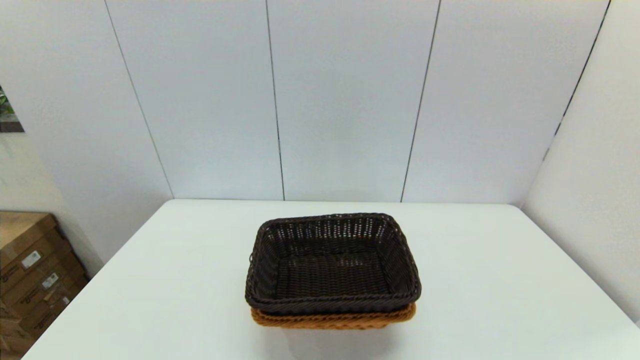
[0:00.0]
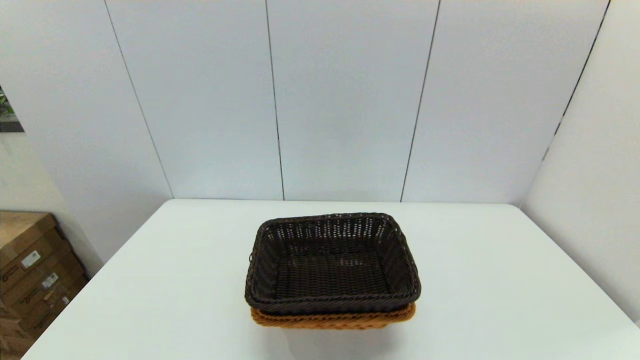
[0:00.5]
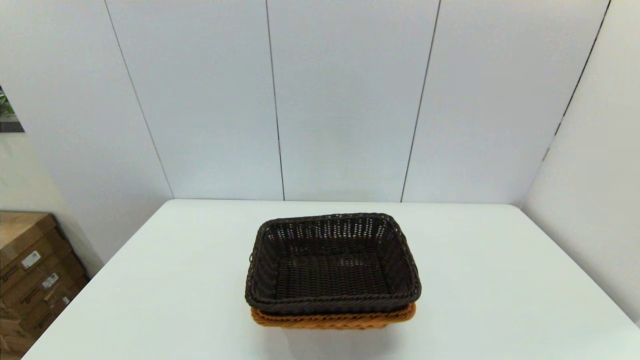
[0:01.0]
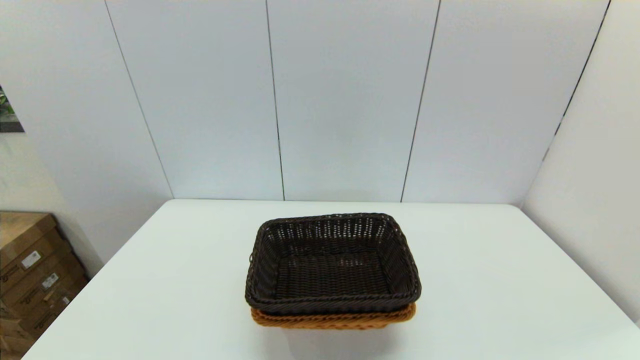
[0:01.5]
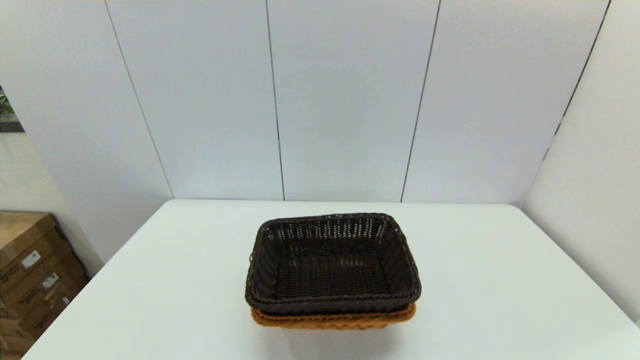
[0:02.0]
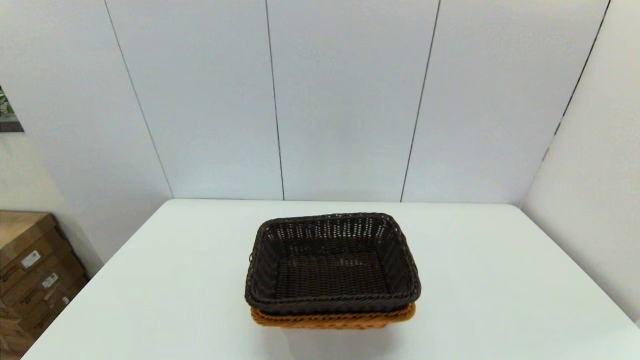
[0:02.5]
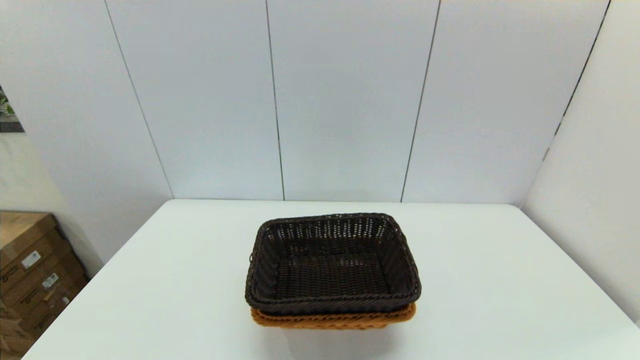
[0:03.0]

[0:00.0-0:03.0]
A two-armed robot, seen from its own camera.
Task of the whole recording: stack a basket on top of another basket.
0:00.0 to 0:03.0: Both grippers stay about where they are.

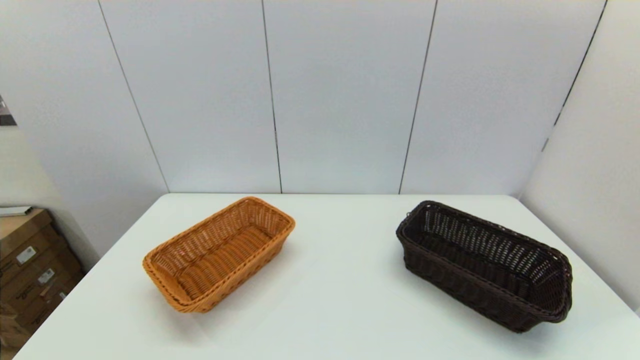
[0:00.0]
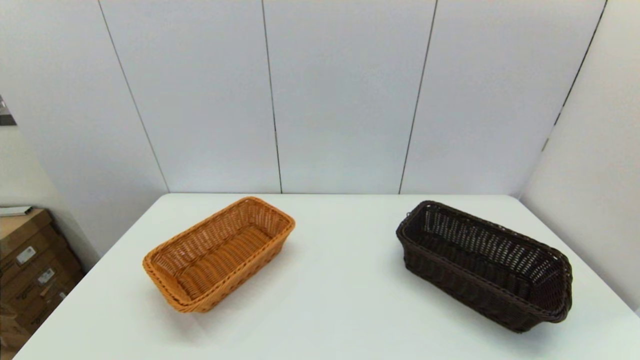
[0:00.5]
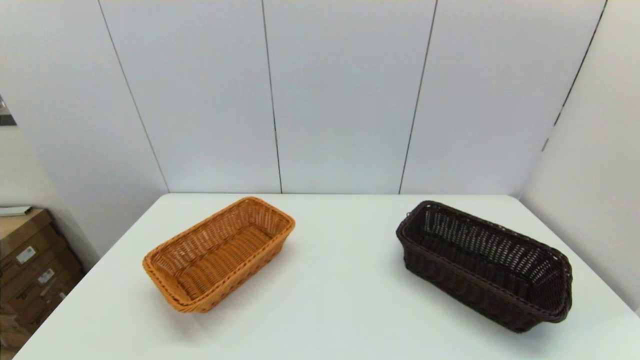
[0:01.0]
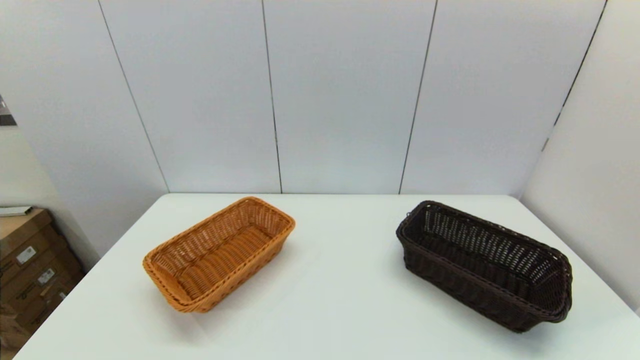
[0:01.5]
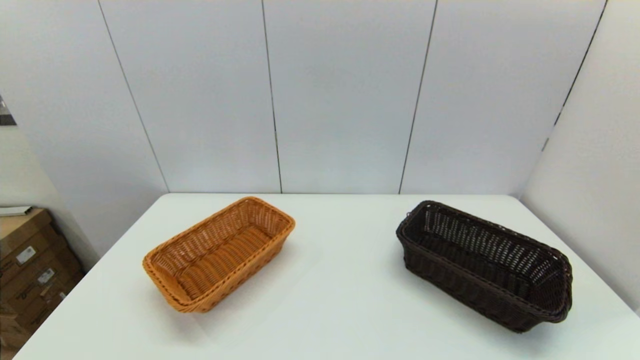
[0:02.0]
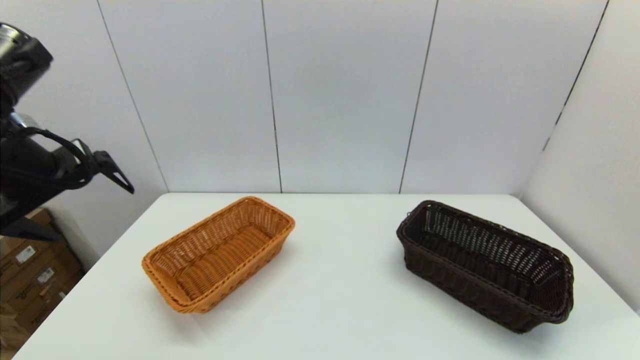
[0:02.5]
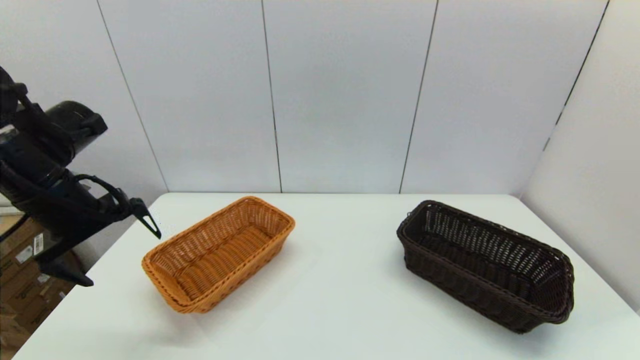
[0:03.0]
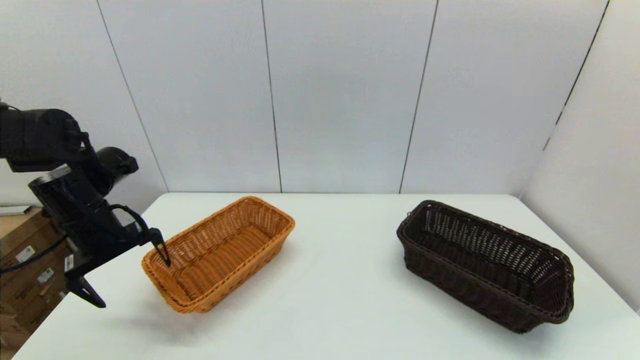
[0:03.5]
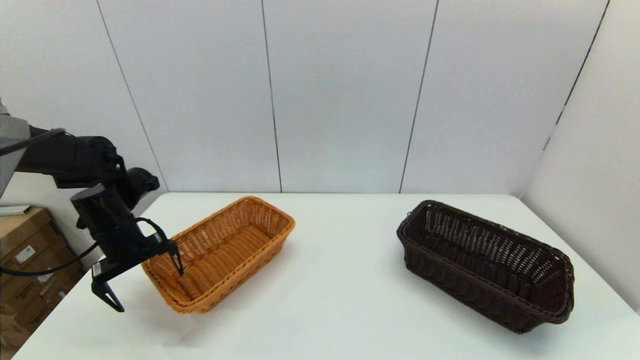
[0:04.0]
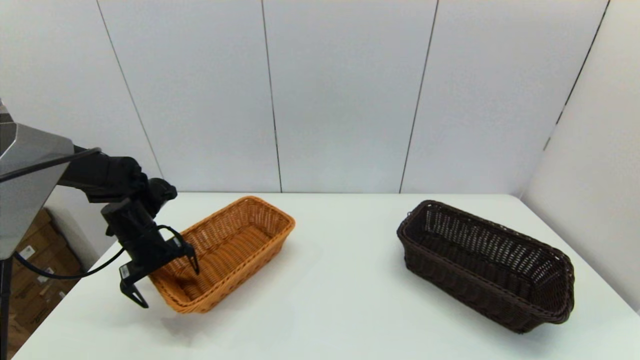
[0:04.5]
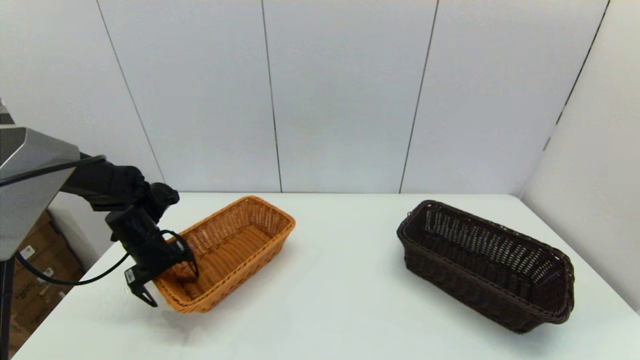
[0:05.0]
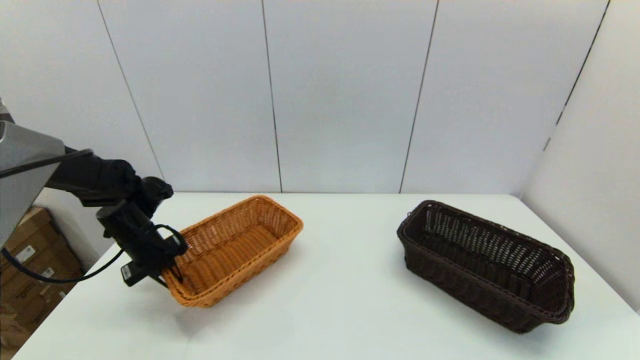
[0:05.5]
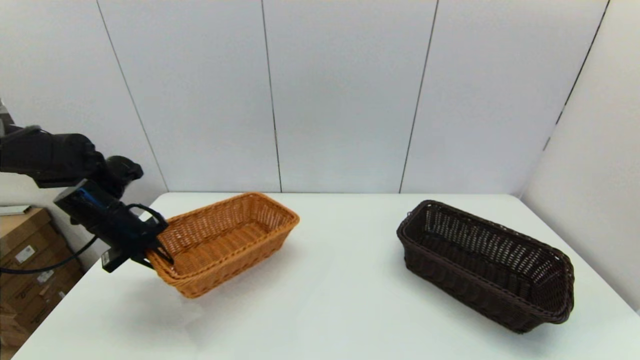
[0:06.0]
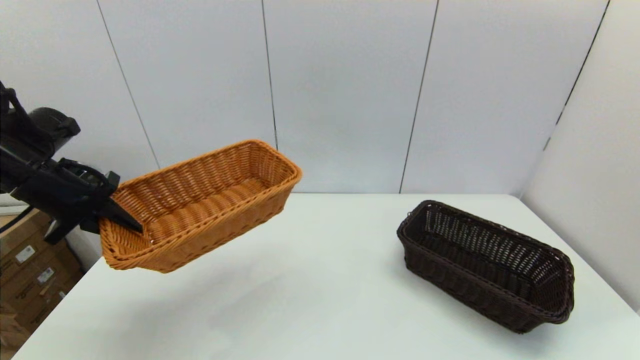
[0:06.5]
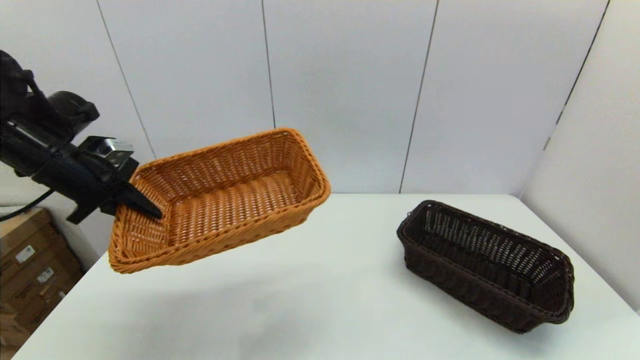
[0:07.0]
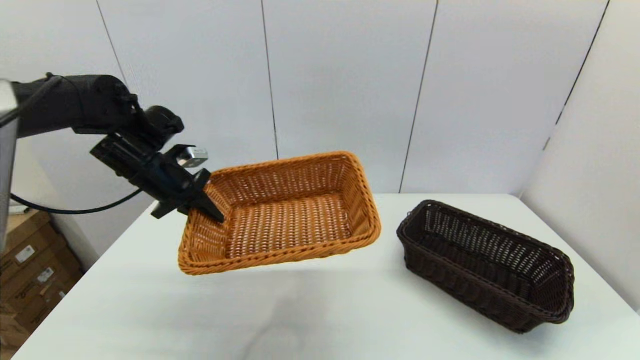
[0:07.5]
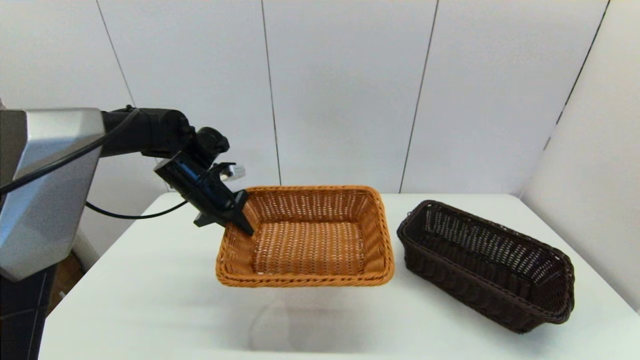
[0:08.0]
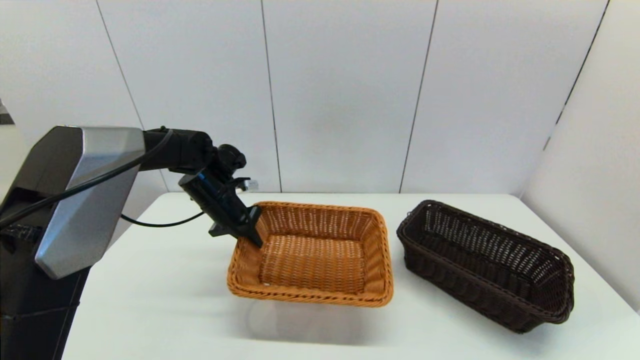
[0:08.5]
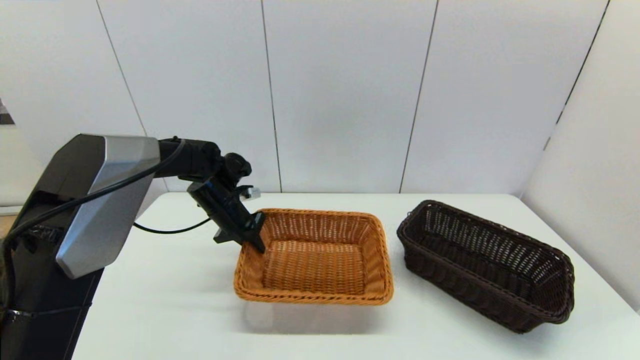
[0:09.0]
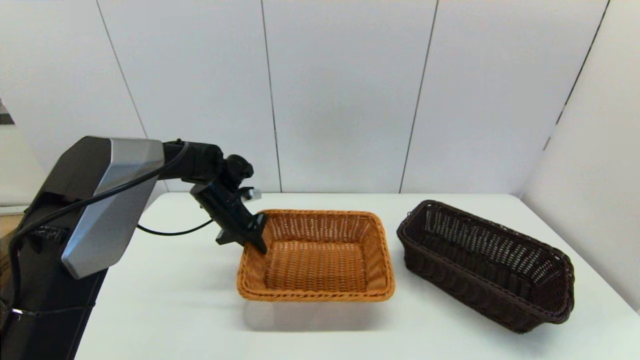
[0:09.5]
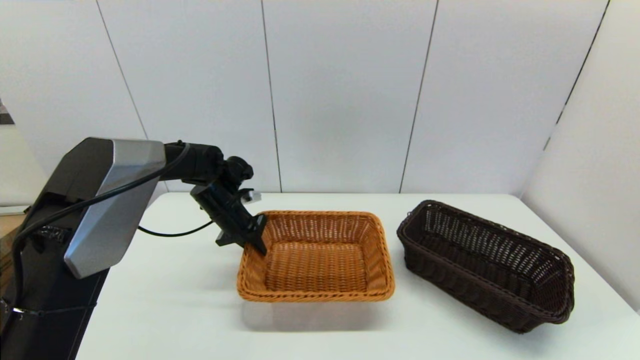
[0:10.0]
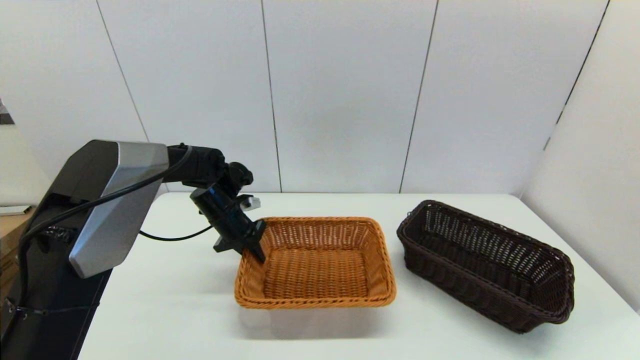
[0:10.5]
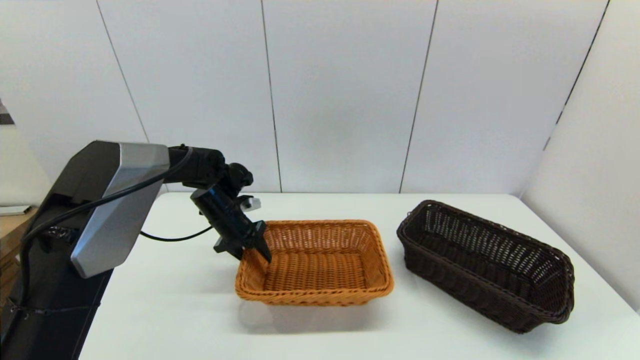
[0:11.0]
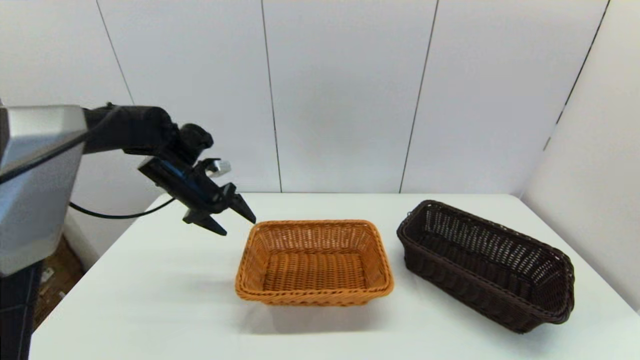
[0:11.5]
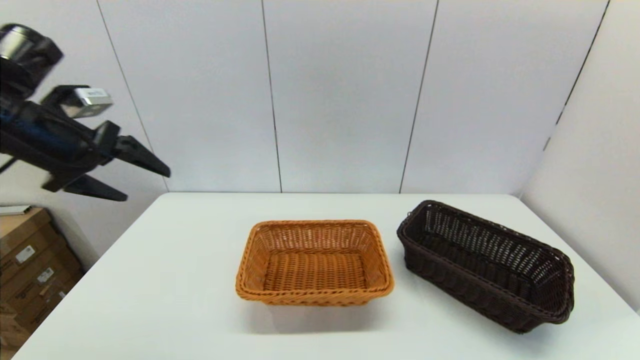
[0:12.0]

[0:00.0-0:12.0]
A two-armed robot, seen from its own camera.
Task of the whole recording: stack a basket on top of another basket.
Step, 0:02.0 to 0:05.5: Grasp the light basket with the left gripper.
Step, 0:06.0 to 0:11.5: Place the light basket on the middle of the table with the left gripper.
0:02.0 to 0:04.0: The left gripper heads downward and forward, covering approximately 35 cm.
0:04.0 to 0:06.0: The left gripper closes.
0:06.0 to 0:08.0: The left gripper heads to the right and forward, covering roughly 15 cm.
0:08.0 to 0:10.0: The left gripper shifts approximately 5 cm downward.
0:10.0 to 0:12.0: The left gripper moves upward, backward and to the left, roughly 30 cm, and opens.

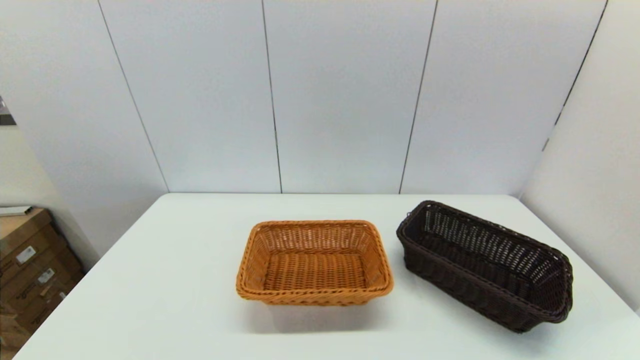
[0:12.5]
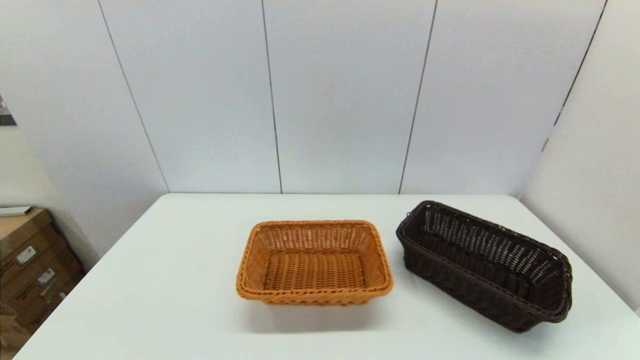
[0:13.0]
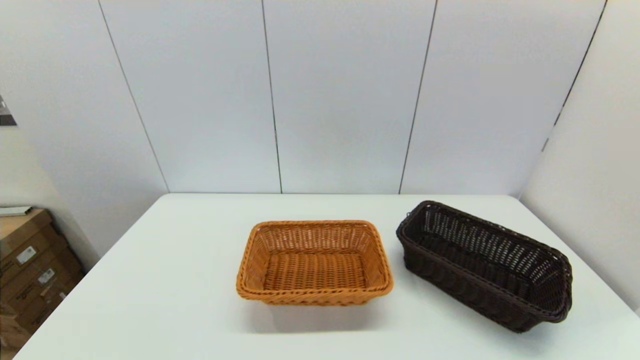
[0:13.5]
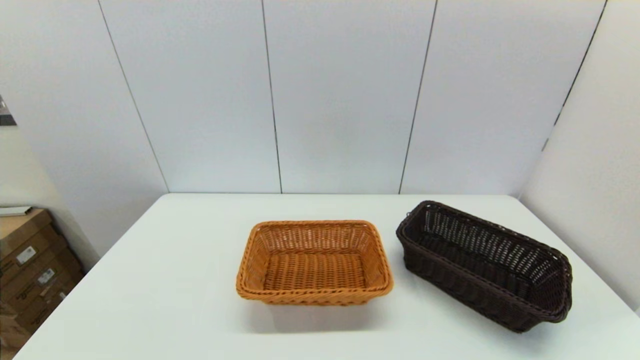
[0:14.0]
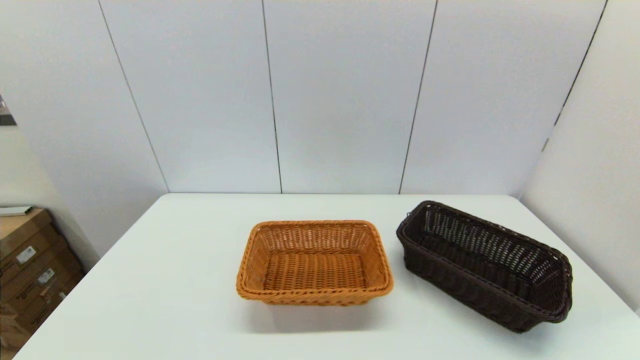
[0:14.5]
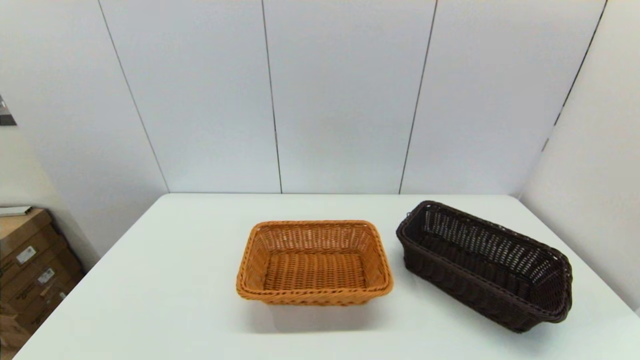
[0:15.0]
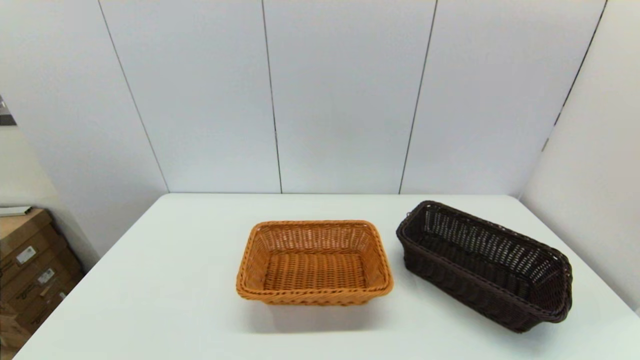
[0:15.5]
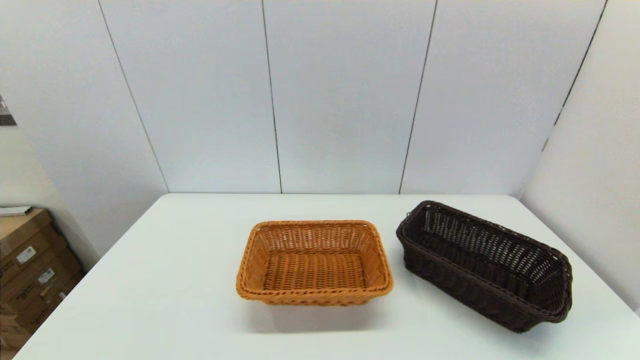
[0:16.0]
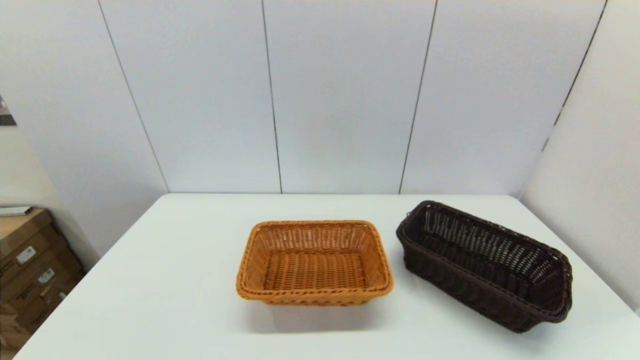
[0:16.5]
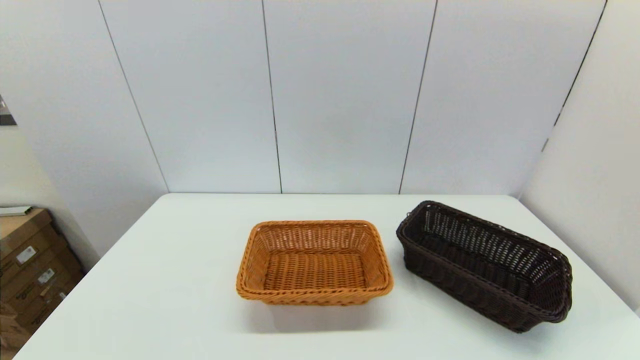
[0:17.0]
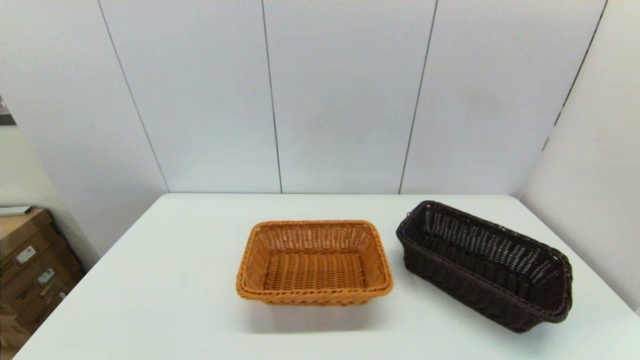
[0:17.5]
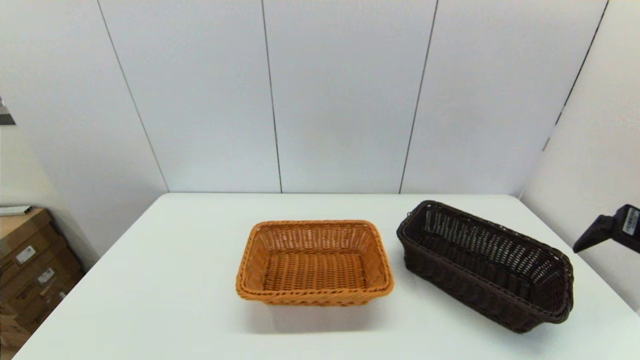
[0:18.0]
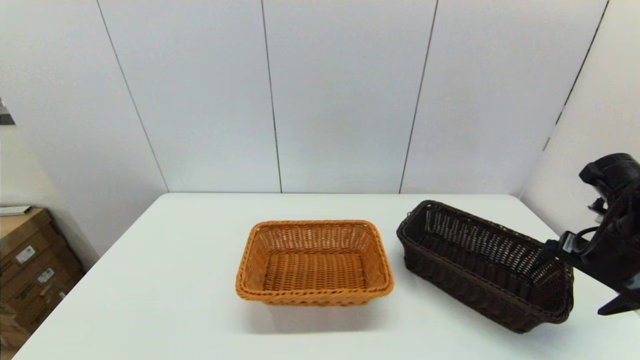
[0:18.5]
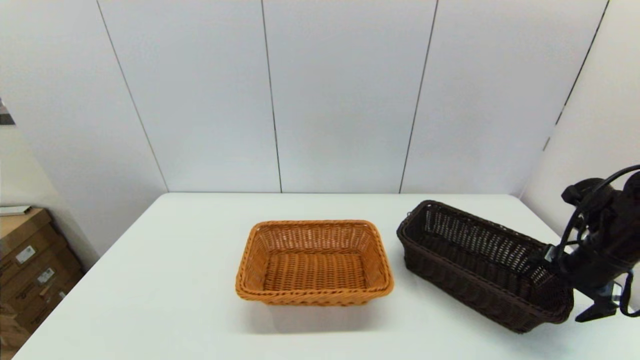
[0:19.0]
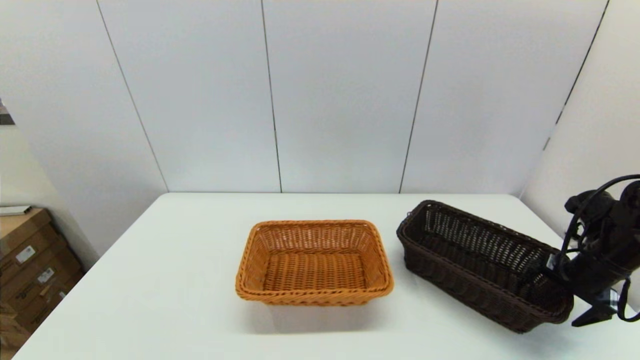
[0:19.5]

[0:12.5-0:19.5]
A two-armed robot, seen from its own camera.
Task of the whole recording: stack a basket on top of another basket.
0:14.5 to 0:16.0: Both grippers stay put.
0:17.5 to 0:19.5: The right gripper travels downward and forward by some 30 cm.
